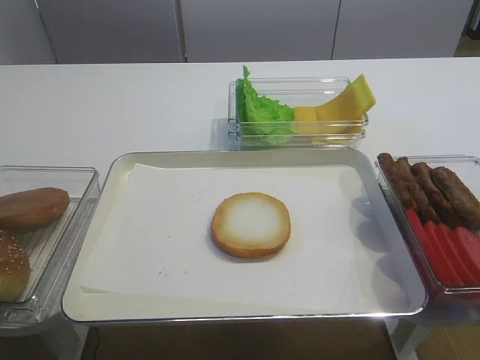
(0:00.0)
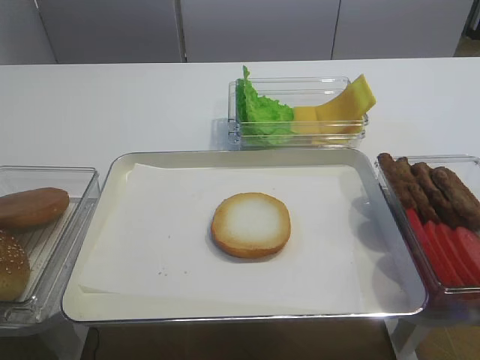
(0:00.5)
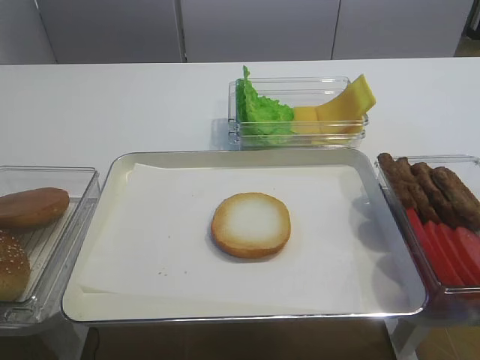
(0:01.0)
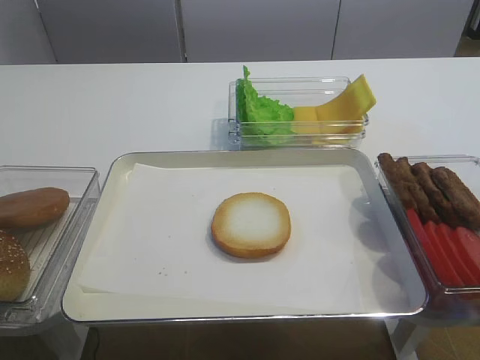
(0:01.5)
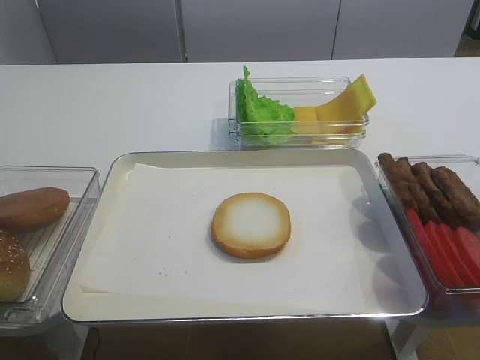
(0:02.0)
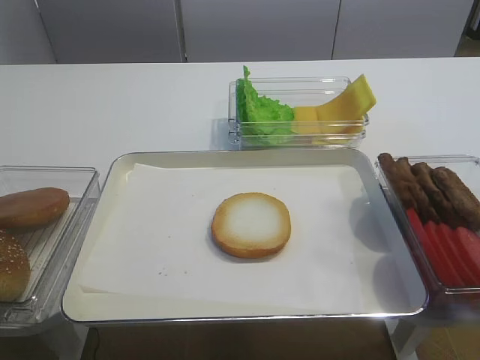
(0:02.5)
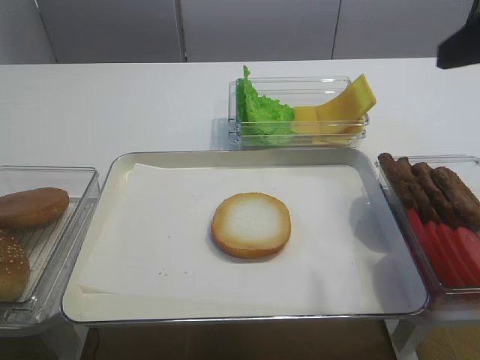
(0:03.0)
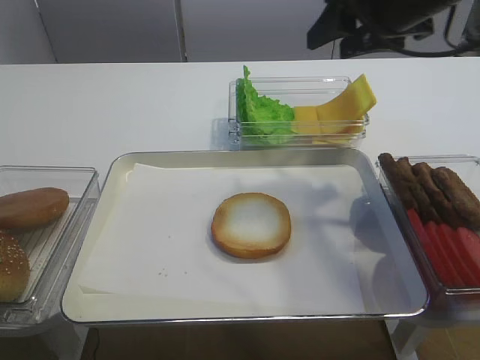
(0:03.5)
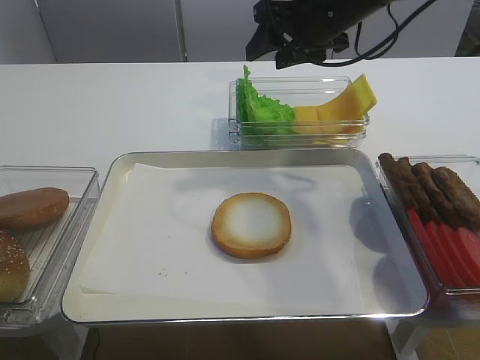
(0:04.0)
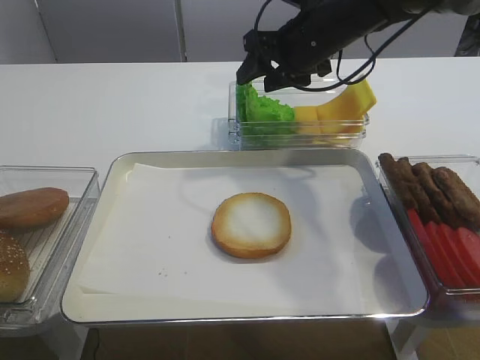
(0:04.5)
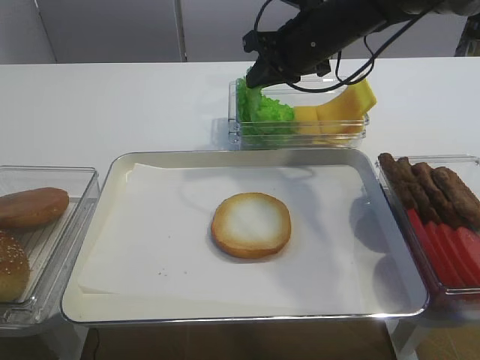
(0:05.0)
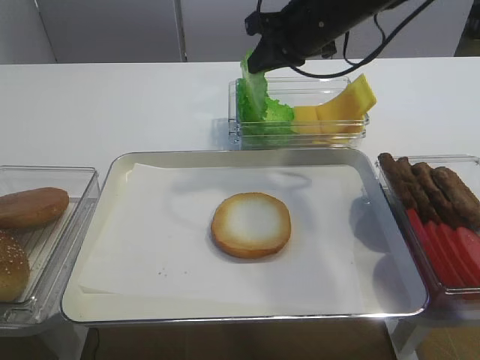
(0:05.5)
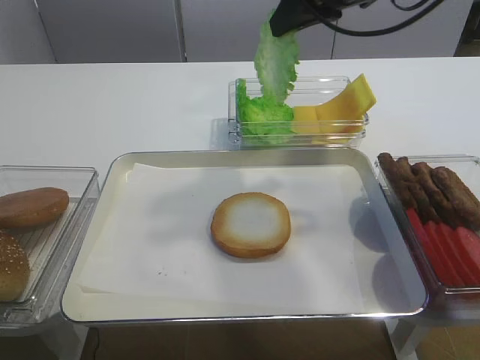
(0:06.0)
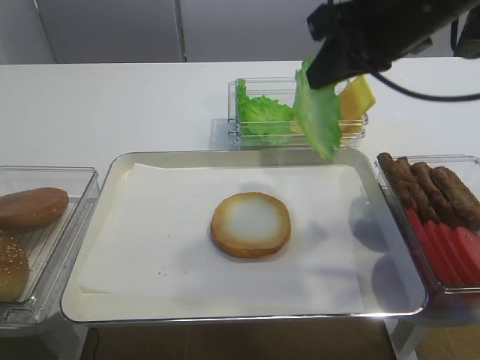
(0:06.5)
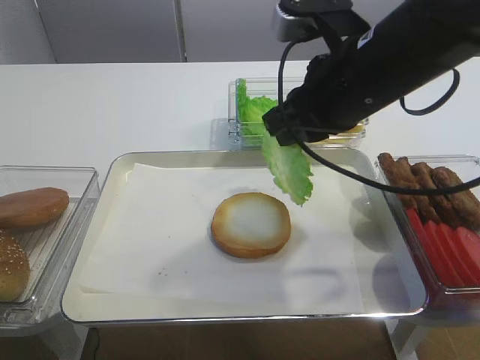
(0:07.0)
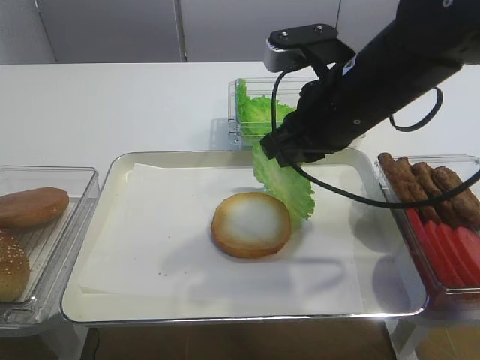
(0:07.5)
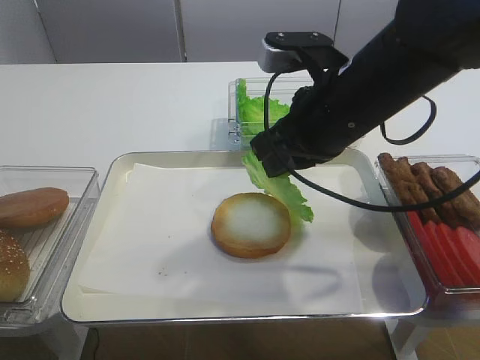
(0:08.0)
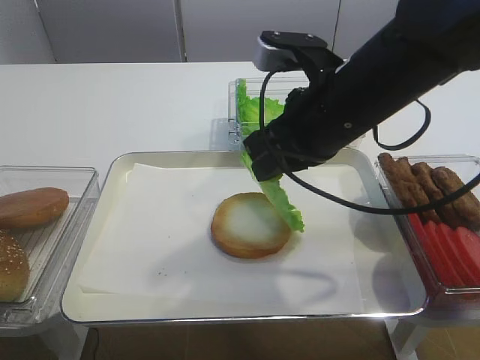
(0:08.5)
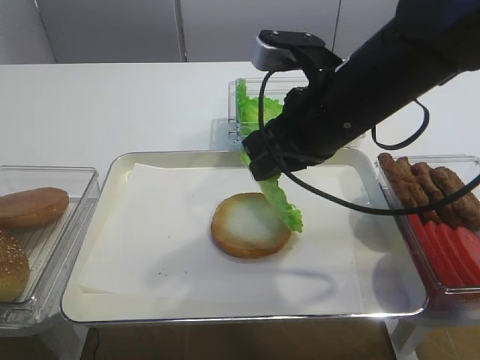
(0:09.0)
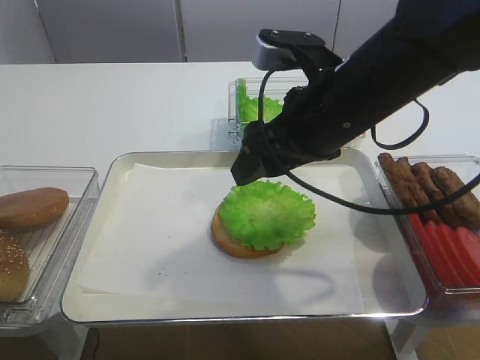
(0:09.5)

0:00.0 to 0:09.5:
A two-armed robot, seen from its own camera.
Step, 0:00.0 to 0:05.5: Pick up the lettuce leaf with the right gripper.
0:02.0 to 0:04.0: The right gripper moves forward, roughly 40 cm.
0:04.0 to 0:05.5: The right gripper closes.
0:05.5 to 0:07.5: The right gripper shifts about 15 cm backward.
0:07.5 to 0:09.5: The right gripper opens.

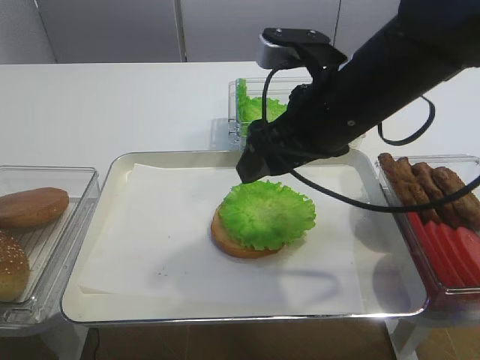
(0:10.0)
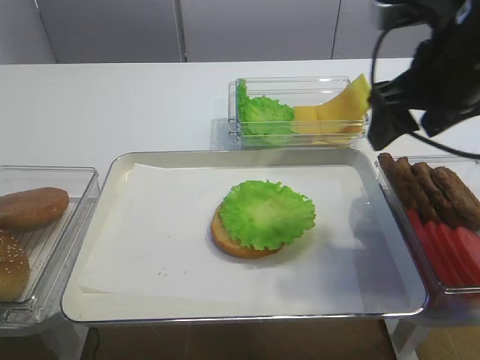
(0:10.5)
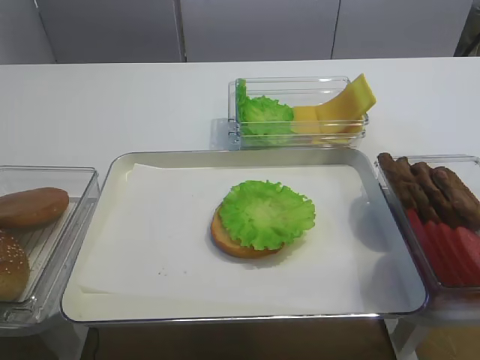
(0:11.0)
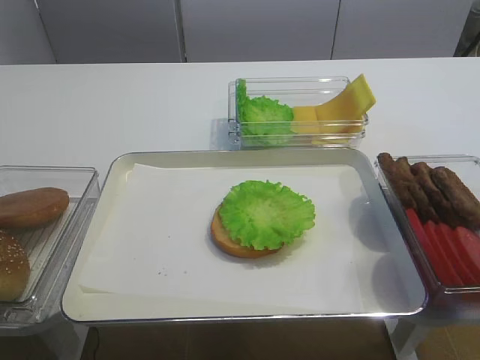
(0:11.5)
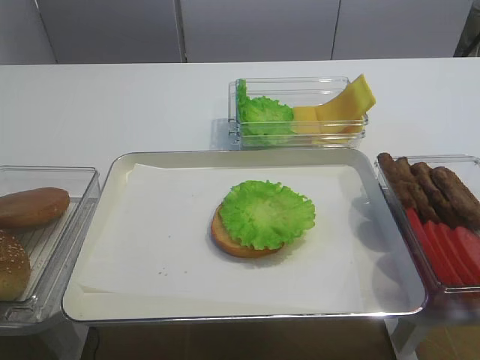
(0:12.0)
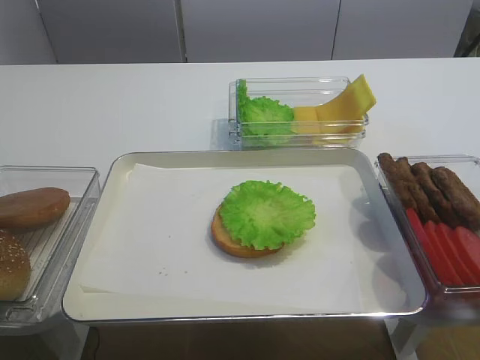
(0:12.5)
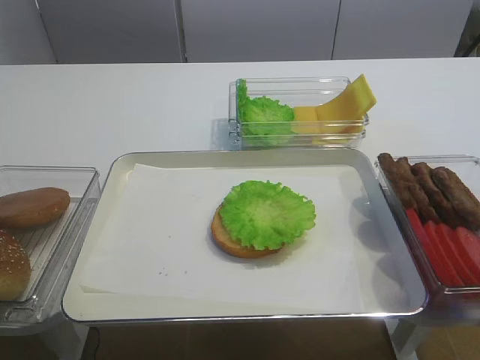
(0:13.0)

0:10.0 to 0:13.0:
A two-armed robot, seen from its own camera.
0:10.0 to 0:11.5: The right gripper heads backward and to the right, covering approximately 25 cm.

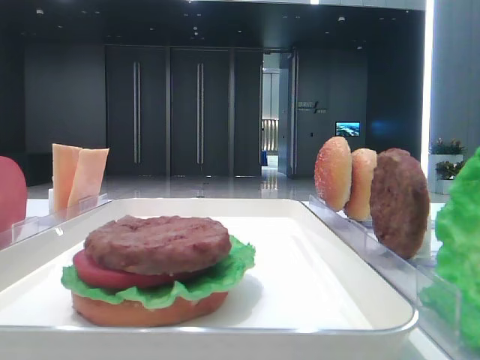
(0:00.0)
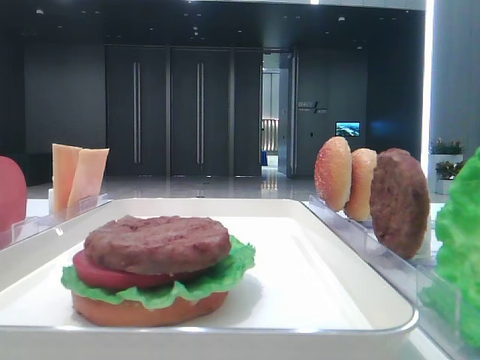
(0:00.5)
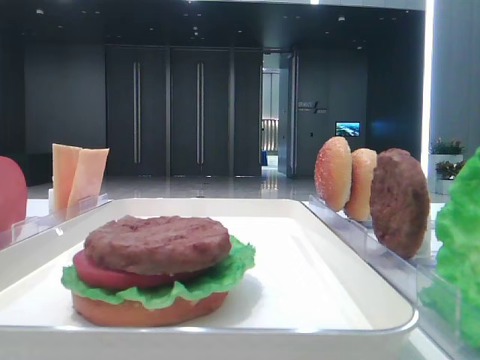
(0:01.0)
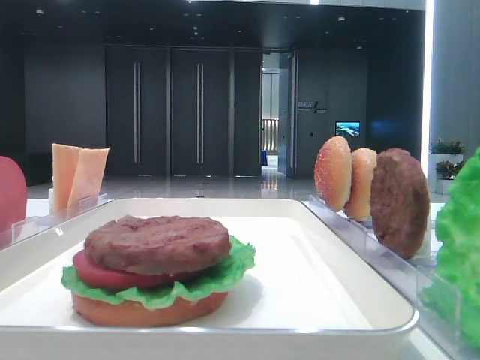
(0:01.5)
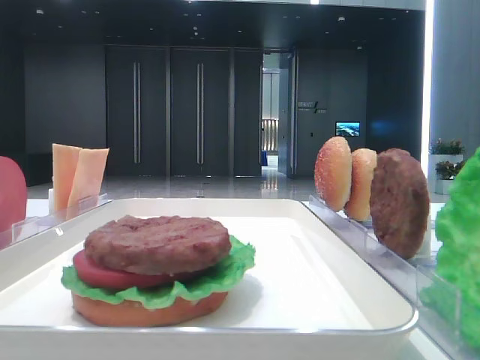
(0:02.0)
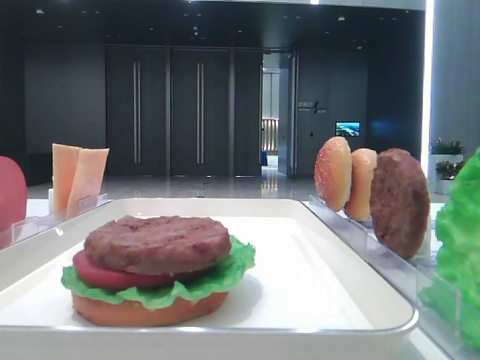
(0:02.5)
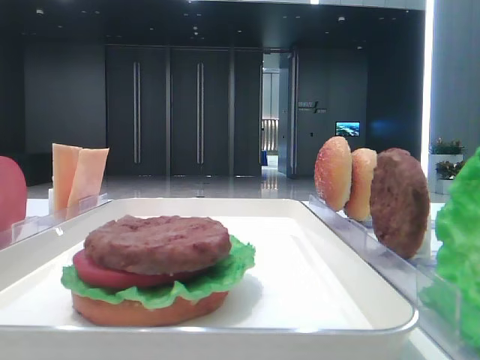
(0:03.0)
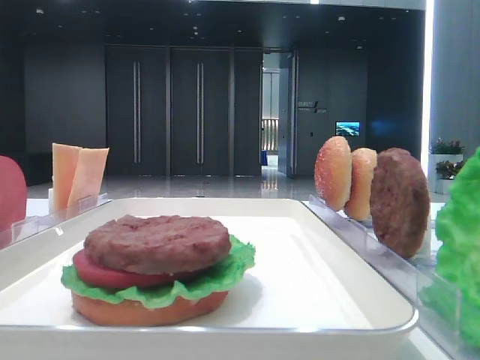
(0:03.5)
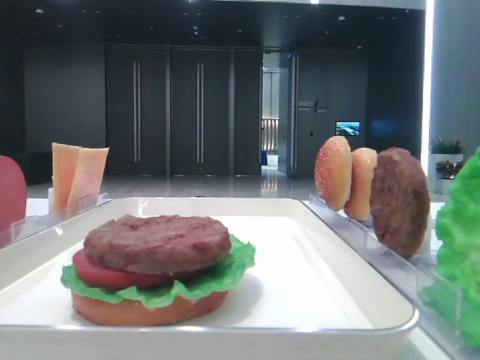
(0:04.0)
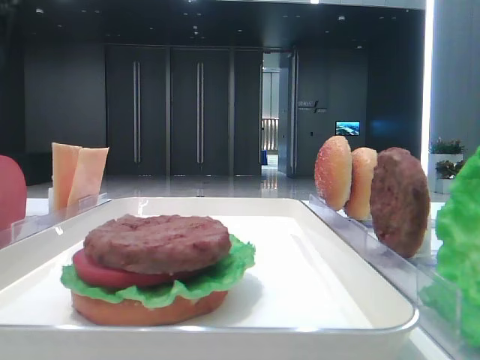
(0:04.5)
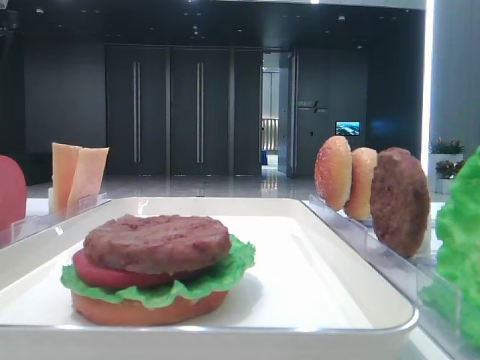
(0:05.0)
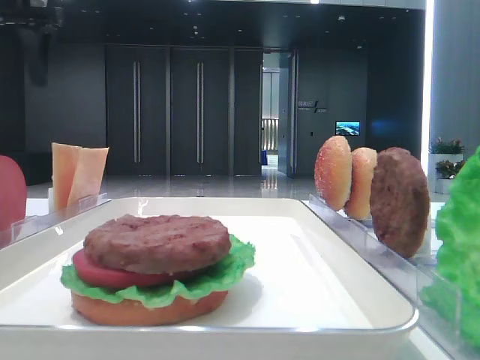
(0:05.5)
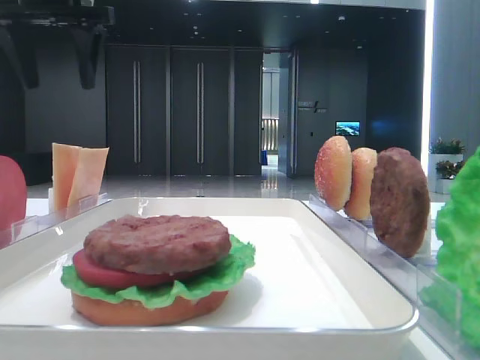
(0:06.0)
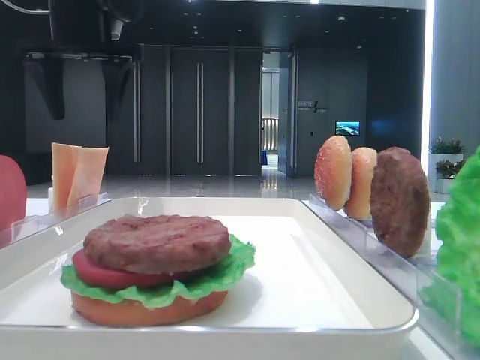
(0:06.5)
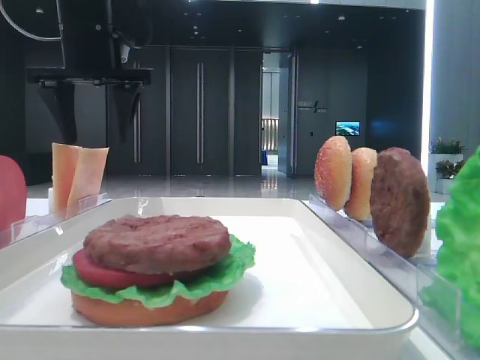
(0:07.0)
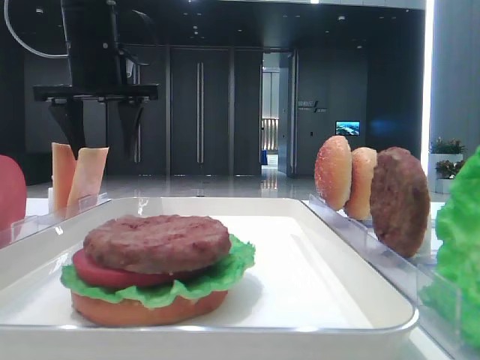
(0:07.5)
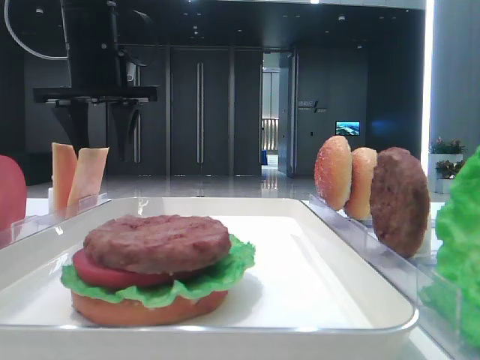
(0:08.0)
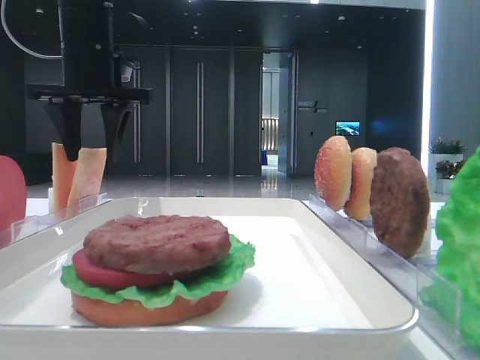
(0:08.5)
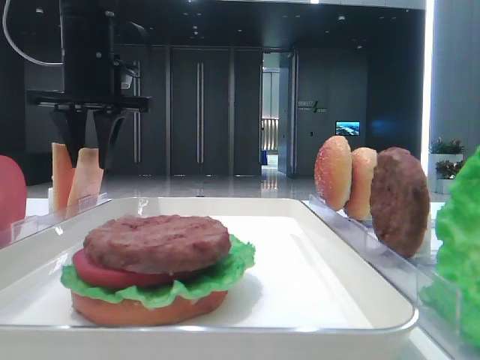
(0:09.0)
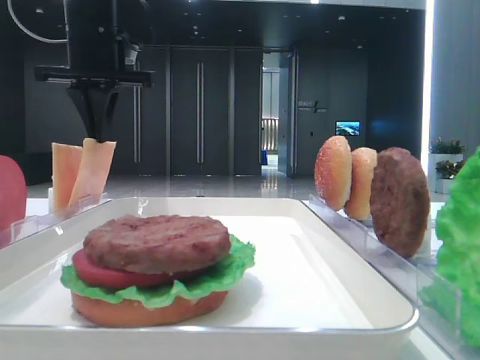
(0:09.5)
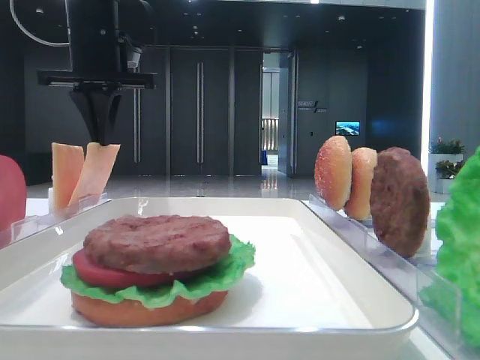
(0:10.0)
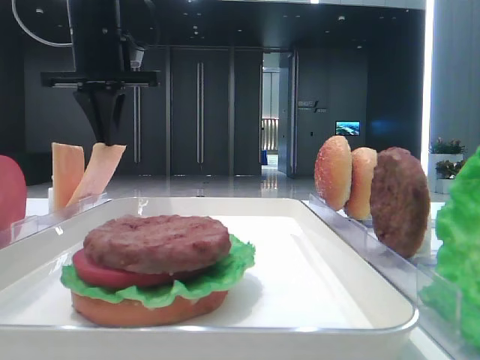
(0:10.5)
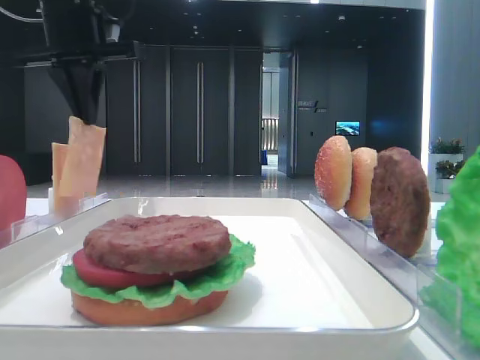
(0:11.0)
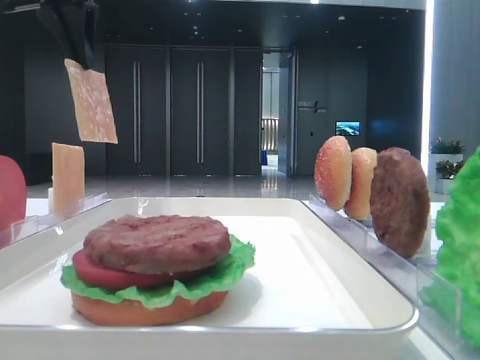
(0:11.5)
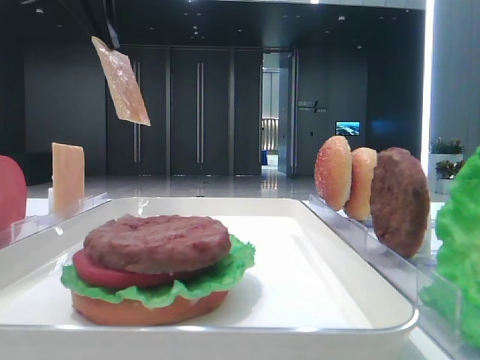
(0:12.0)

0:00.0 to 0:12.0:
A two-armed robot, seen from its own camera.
Step, 0:00.0 to 0:09.5: Pick up the cheese slice with the left hand.
0:02.0 to 0:04.0: The left gripper travels forward by some 35 cm.
0:04.0 to 0:06.0: The left gripper moves to the right, forward and downward, roughly 15 cm.
0:06.0 to 0:08.0: The left gripper is displaced downward by approximately 10 cm.
0:08.0 to 0:10.0: The left gripper closes.
0:10.0 to 0:12.0: The left gripper is displaced upward and backward by approximately 10 cm.

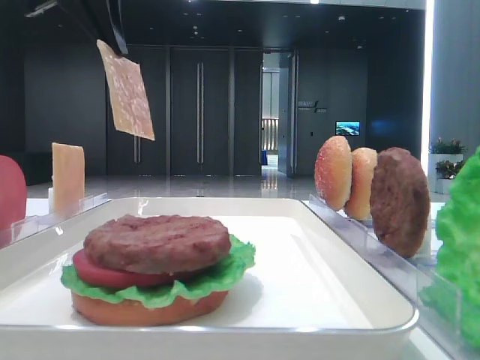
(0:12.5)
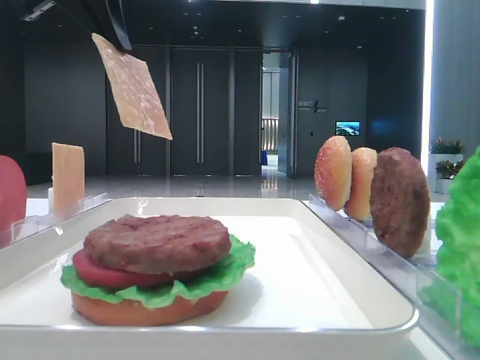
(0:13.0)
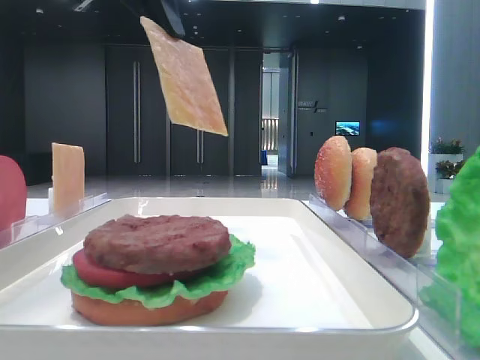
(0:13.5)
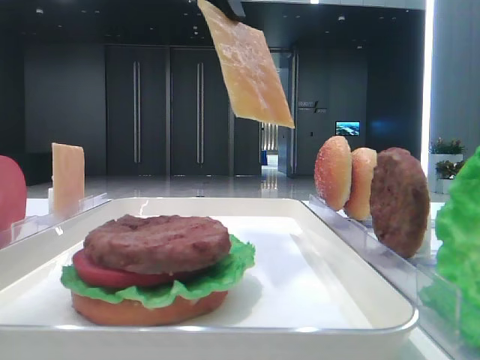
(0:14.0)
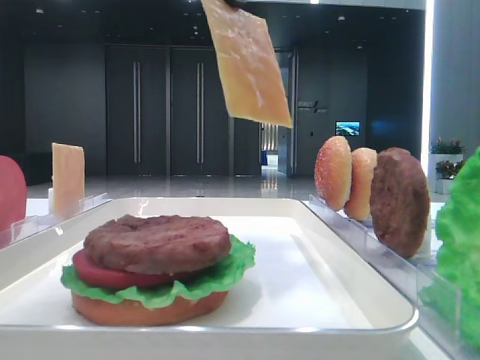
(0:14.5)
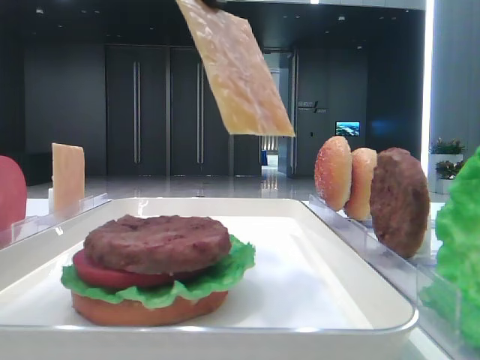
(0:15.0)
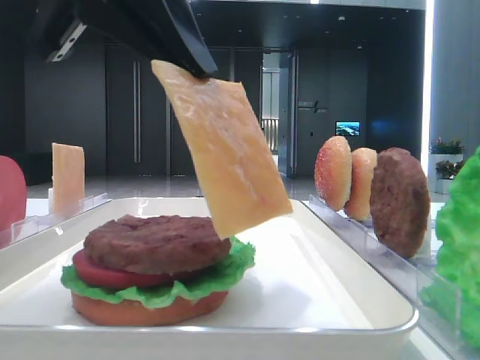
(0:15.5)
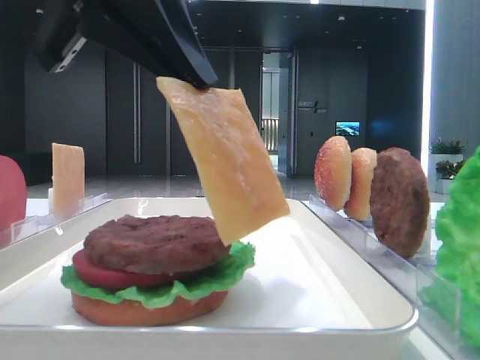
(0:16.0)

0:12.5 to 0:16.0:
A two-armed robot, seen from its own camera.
0:12.5 to 0:14.5: The left gripper moves to the right and backward, some 15 cm.
0:14.5 to 0:16.0: The left gripper heads downward and backward, covering roughly 10 cm.
